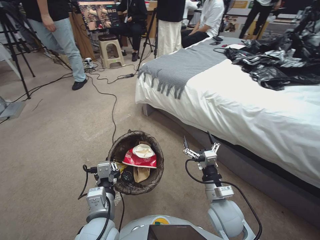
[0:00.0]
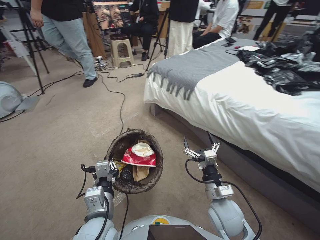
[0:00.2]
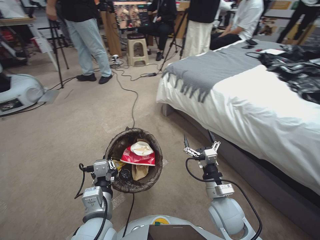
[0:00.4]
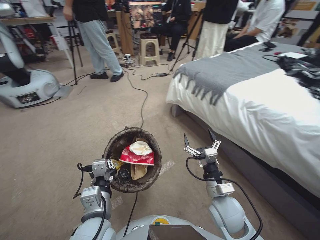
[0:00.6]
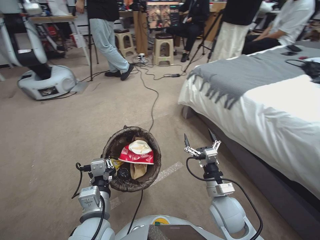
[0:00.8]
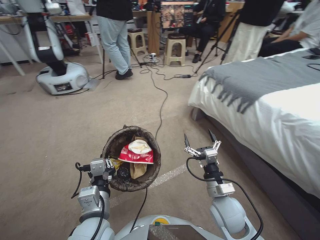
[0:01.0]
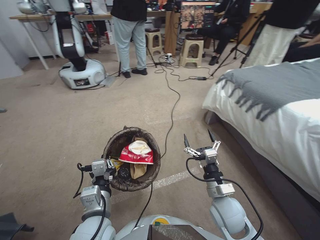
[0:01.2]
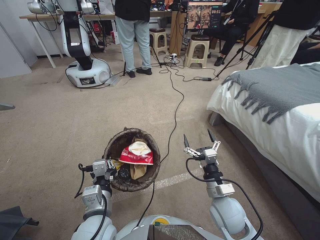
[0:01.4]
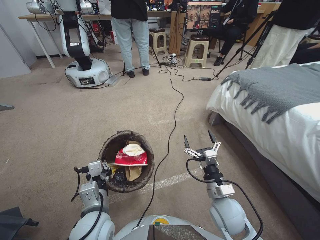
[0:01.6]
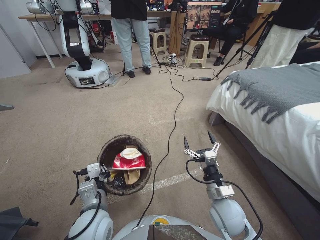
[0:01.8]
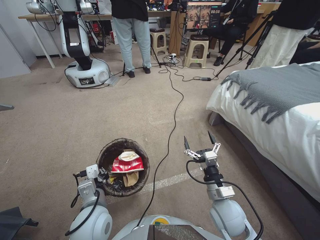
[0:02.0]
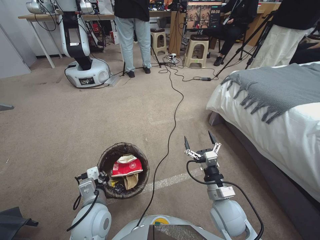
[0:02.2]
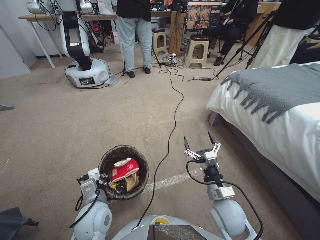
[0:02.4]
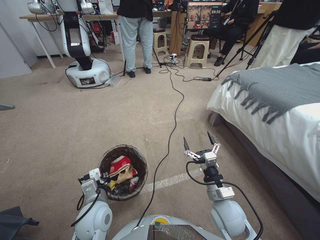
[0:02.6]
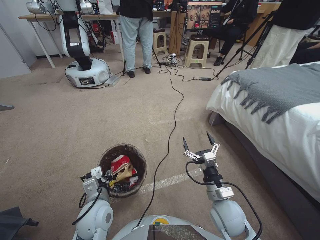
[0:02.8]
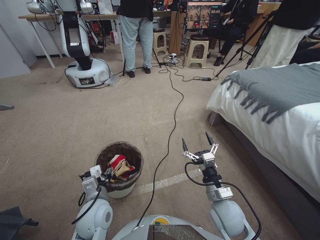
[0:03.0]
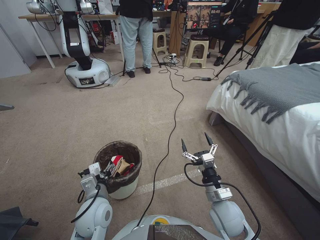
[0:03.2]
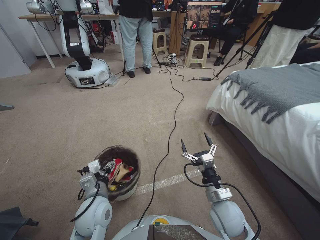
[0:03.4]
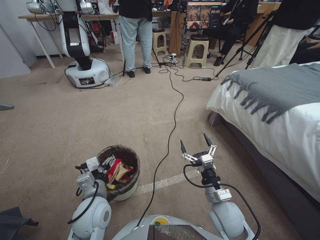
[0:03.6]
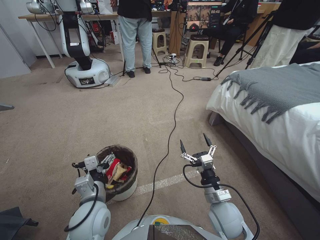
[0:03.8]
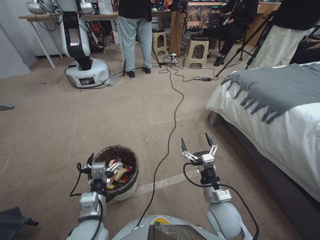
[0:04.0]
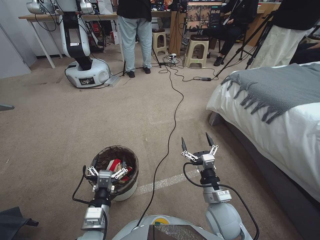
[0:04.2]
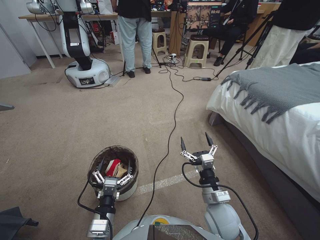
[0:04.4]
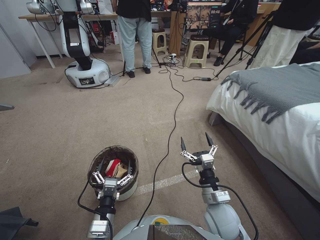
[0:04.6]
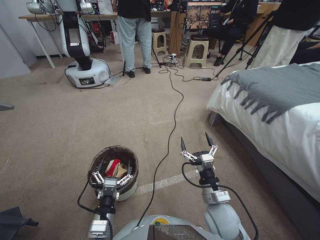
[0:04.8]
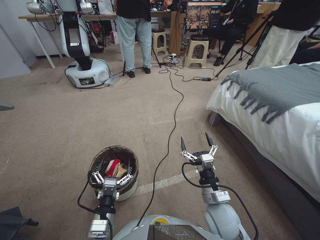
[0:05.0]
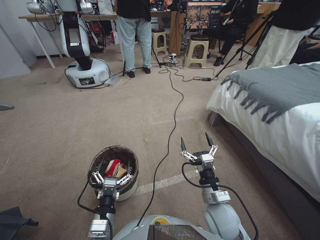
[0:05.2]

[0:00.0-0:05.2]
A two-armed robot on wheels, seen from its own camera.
Task of the whole recording: Pick up the trash bin, then pick up the garbage from the floor and place it into the trash bin.
0:01.8 to 0:03.4: The left gripper shifts by some 5 cm, and opens.
0:03.4 to 0:05.2: The left gripper travels backward by roughly 10 cm.

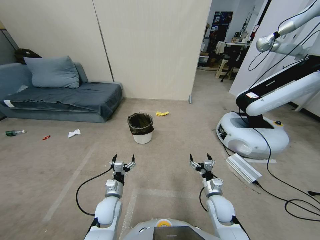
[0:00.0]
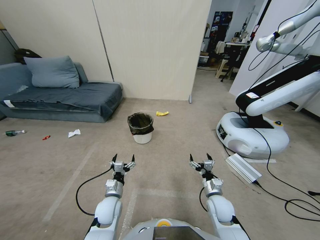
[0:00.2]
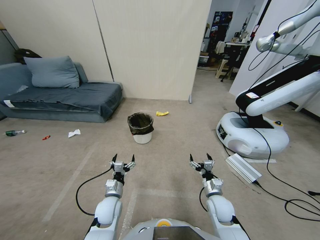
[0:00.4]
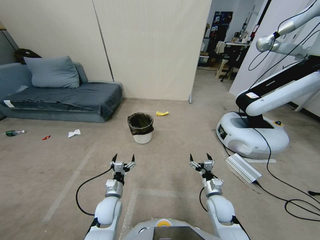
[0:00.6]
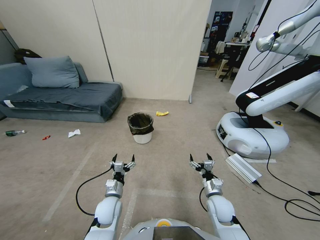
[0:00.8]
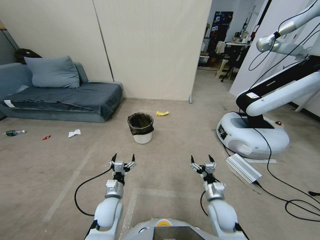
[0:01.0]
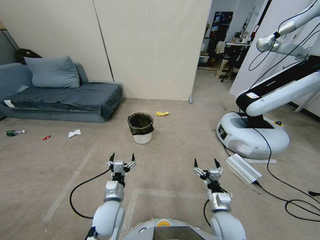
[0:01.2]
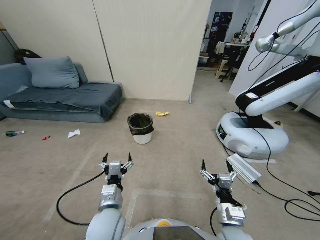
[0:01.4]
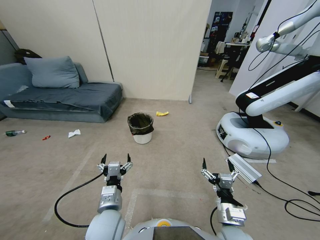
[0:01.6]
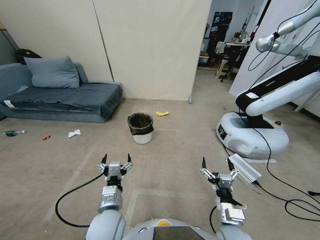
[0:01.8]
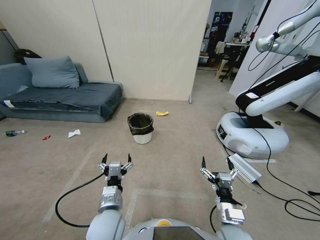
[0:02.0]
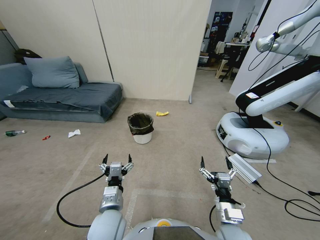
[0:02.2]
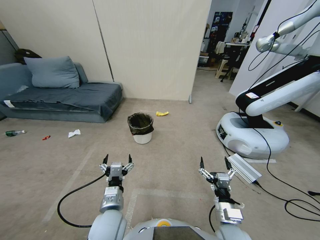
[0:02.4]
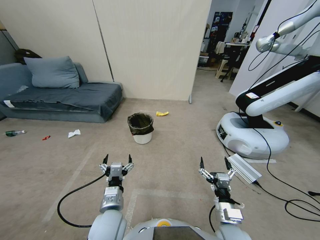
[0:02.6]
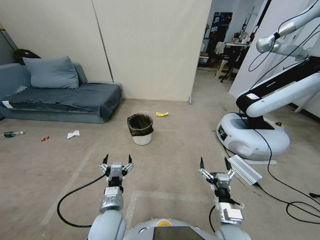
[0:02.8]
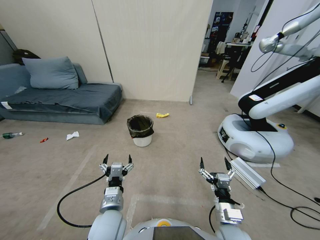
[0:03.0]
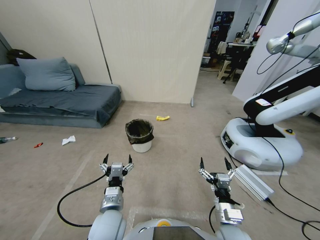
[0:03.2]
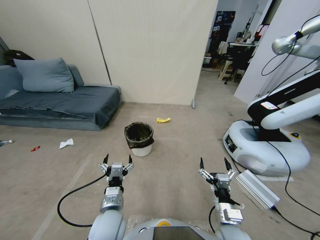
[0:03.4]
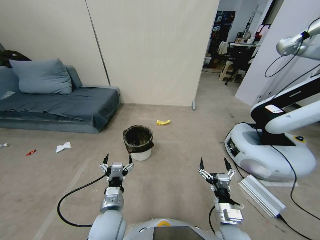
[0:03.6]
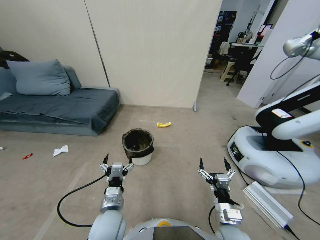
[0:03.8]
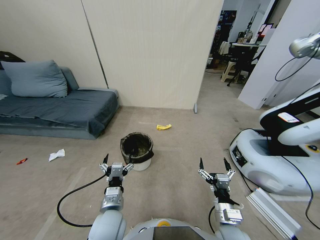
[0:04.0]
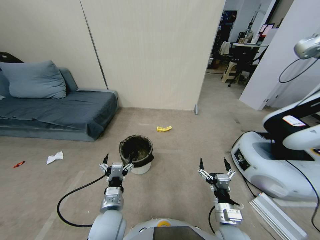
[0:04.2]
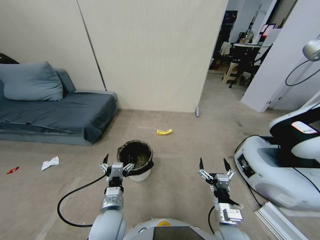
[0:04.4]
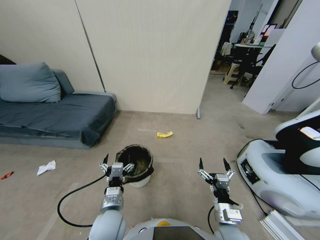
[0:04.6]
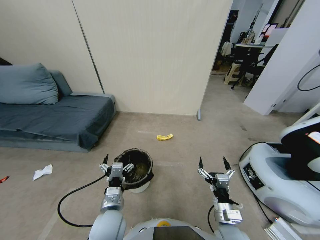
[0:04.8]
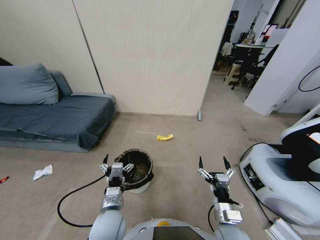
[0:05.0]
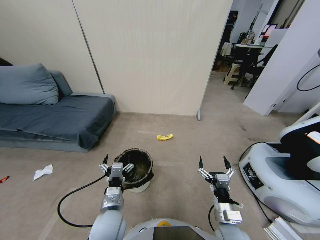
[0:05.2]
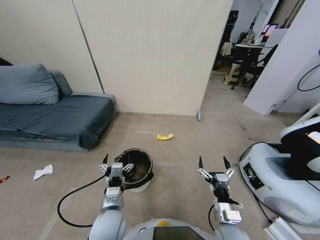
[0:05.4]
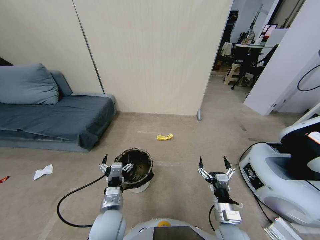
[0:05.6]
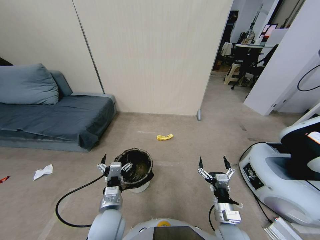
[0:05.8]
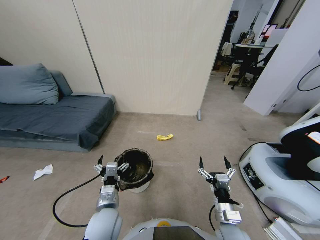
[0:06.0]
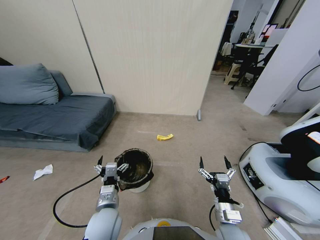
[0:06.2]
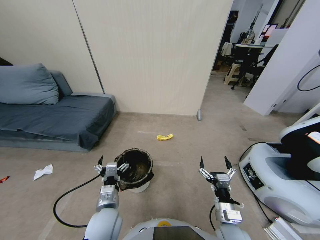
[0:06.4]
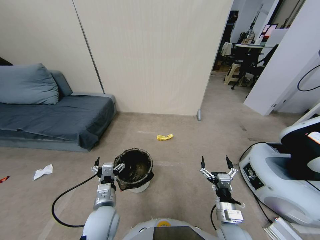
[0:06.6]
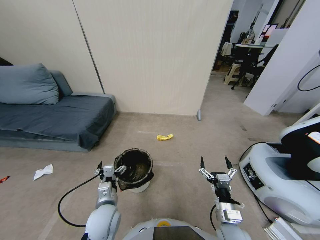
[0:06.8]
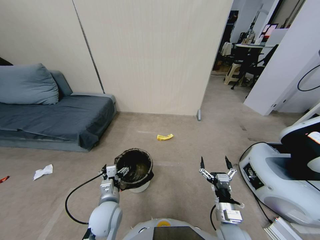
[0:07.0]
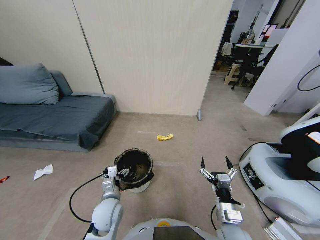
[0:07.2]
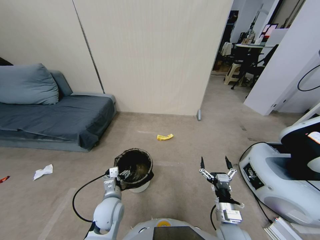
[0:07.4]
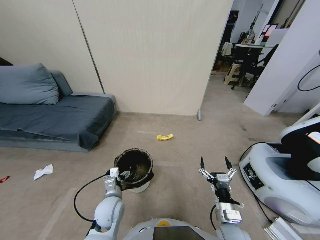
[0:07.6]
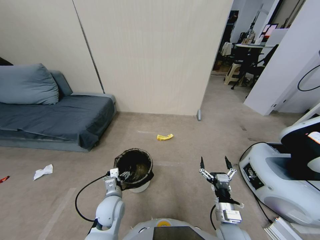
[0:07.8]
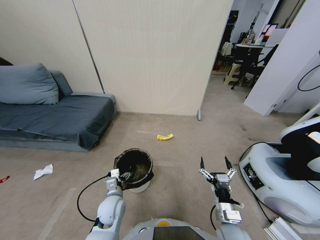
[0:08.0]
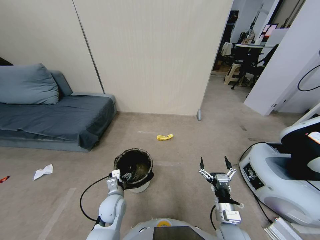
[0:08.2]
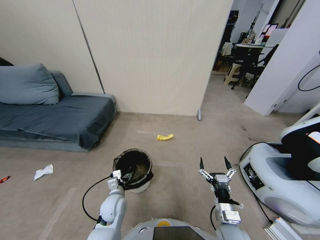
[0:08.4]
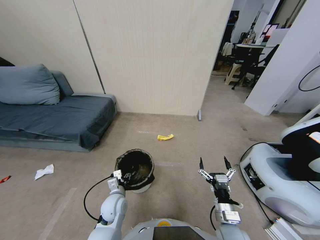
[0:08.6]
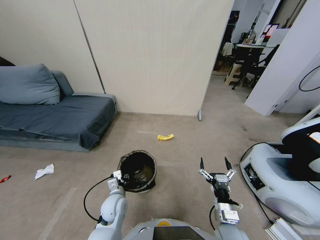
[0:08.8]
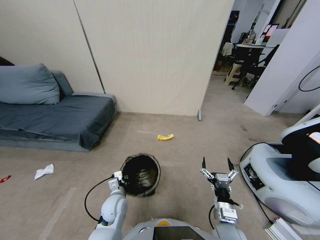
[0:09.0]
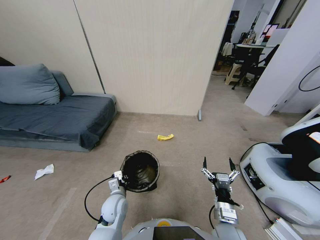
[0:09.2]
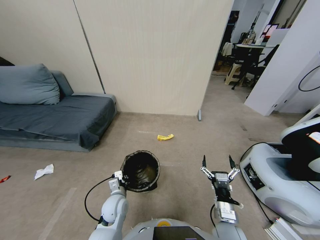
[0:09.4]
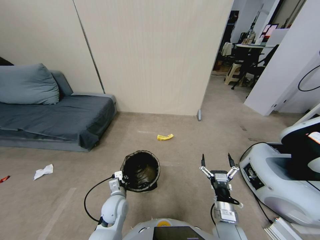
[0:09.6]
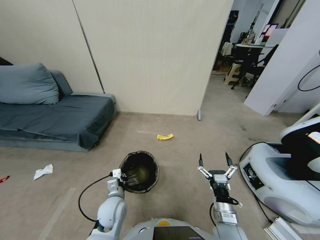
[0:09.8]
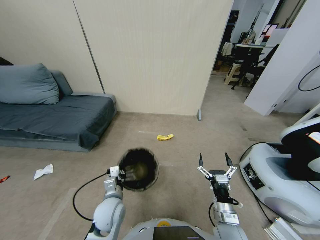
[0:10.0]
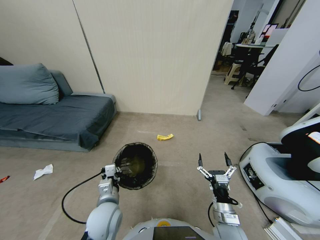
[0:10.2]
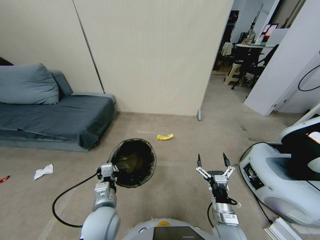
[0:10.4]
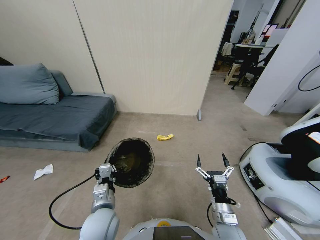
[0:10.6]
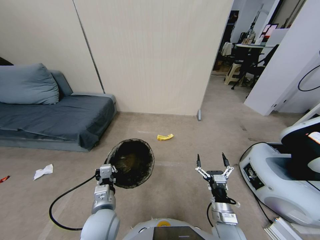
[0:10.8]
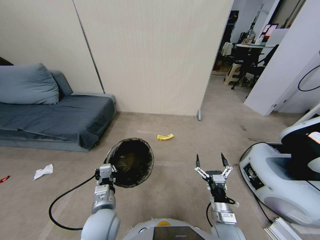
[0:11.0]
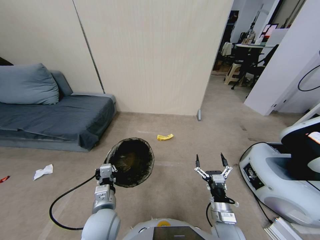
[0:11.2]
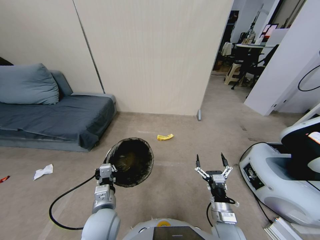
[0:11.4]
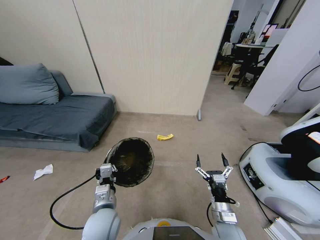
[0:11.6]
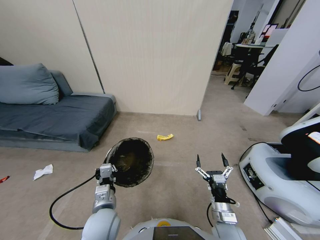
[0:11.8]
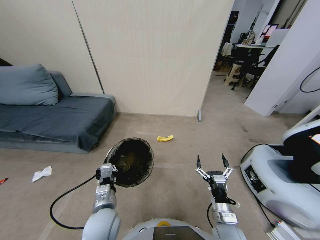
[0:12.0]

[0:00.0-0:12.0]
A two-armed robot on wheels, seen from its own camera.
Task of the whole recording: Pick up the trash bin, then pick up the garbage from the floor and place it into the trash bin.
0:01.6 to 0:03.0: Neither gripper changes place.
0:06.0 to 0:07.6: The left gripper moves downward and forward, about 10 cm.
0:07.6 to 0:09.0: The left gripper closes its fingers.
0:09.0 to 0:10.4: The left gripper heads upward and backward, covering about 10 cm.
0:10.4 to 0:12.0: The two grippers keep their place.

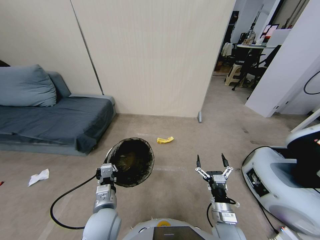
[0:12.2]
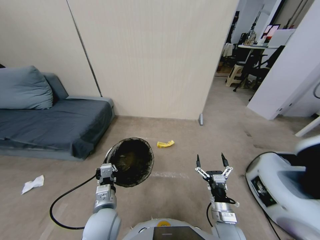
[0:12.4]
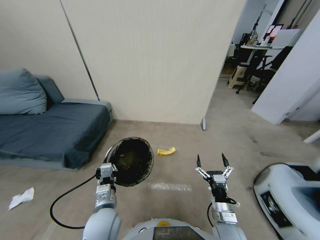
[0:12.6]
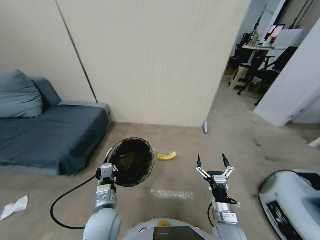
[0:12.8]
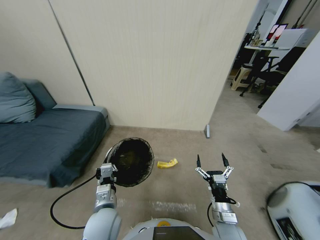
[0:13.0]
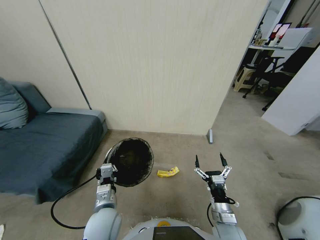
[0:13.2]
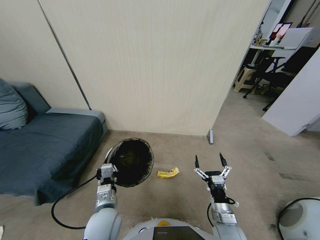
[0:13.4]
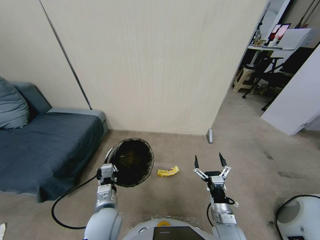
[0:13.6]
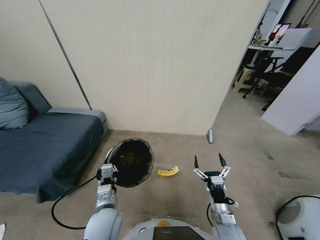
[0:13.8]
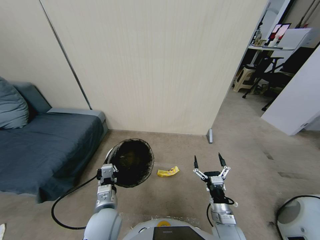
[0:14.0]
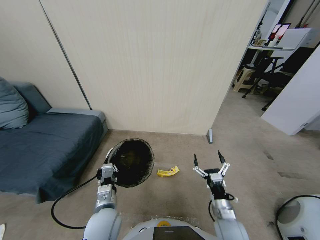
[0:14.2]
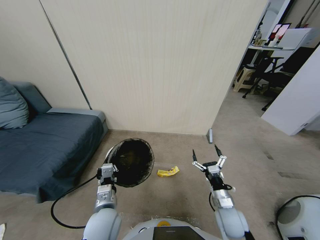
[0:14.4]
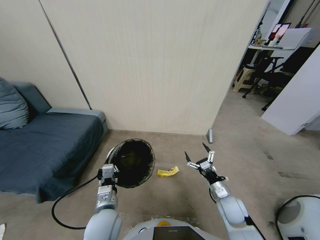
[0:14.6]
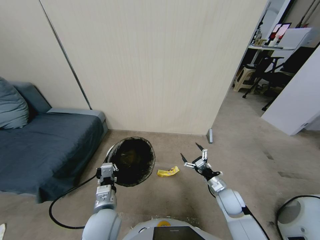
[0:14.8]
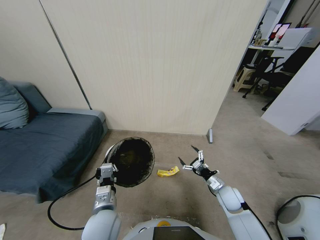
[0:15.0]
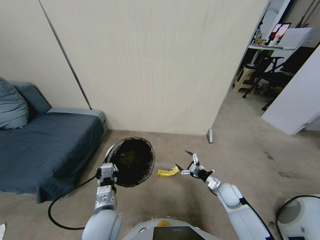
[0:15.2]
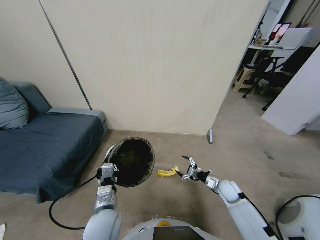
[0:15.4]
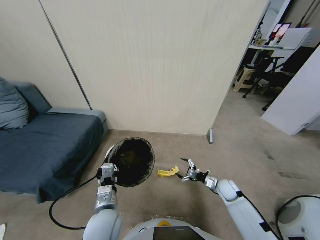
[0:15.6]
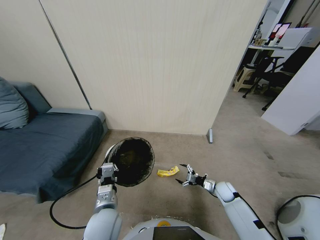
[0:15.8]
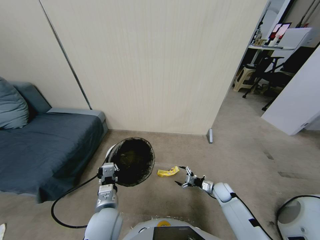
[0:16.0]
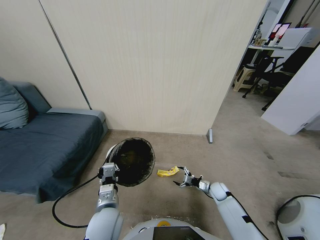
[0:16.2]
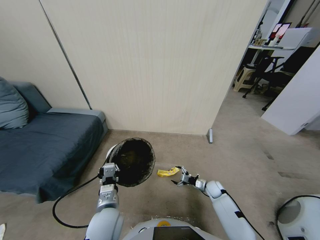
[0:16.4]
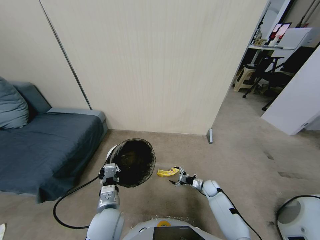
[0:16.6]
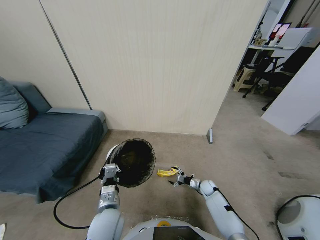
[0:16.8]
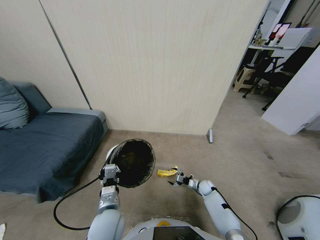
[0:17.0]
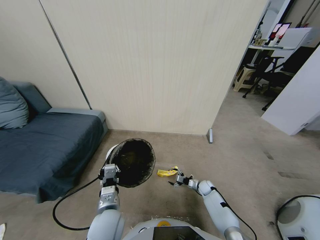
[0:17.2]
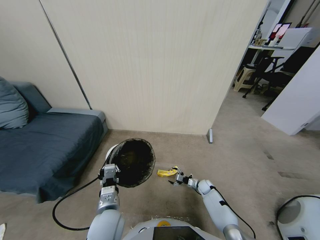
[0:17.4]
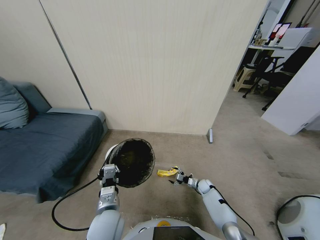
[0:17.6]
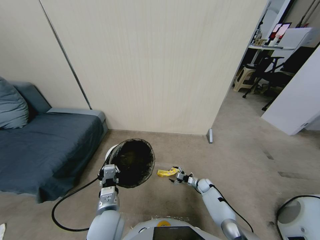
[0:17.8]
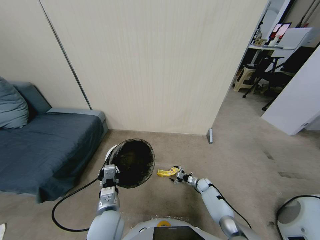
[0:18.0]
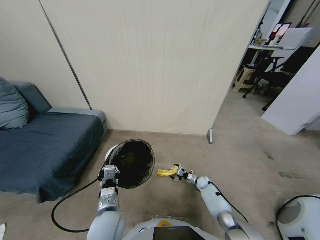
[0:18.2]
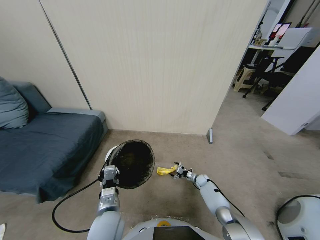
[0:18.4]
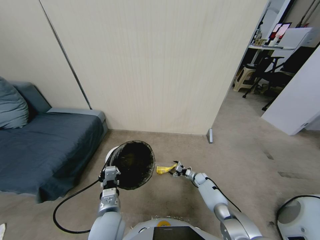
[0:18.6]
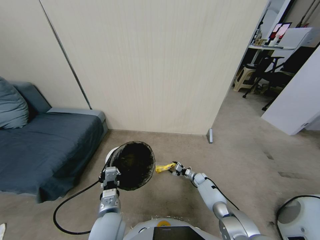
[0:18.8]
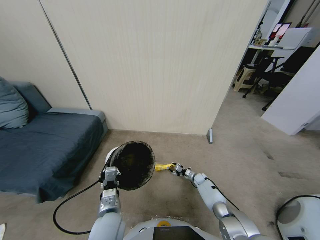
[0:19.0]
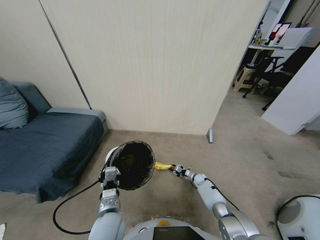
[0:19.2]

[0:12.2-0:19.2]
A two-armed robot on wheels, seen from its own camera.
Task of the whole recording: Pick up the trash bin, then pick up the garbage from the floor and place it into the trash bin.
0:13.6 to 0:15.0: The right gripper travels forward and to the right by some 15 cm.
0:15.0 to 0:16.4: The right gripper travels downward and forward by about 15 cm.
0:16.4 to 0:17.8: The right gripper shifts approximately 5 cm downward.
0:17.8 to 0:19.2: The right gripper closes.
